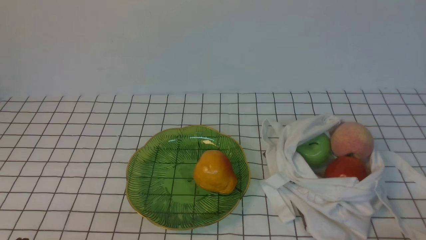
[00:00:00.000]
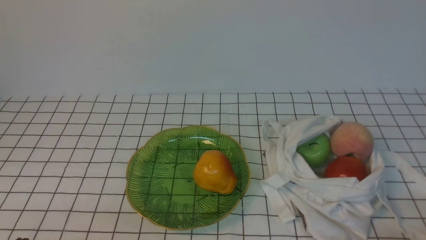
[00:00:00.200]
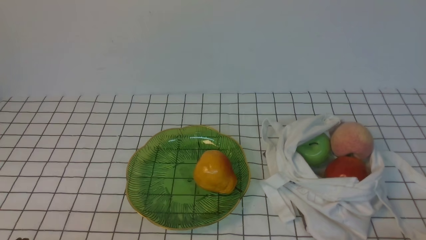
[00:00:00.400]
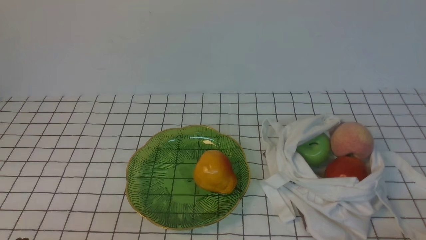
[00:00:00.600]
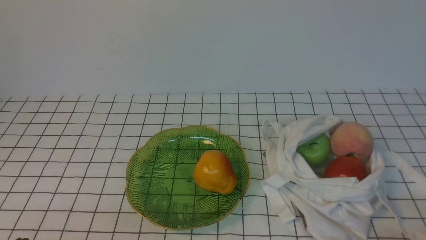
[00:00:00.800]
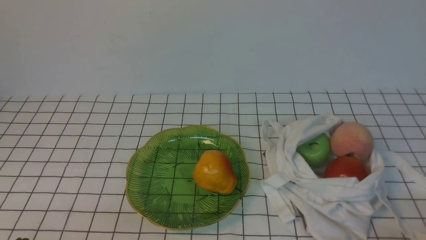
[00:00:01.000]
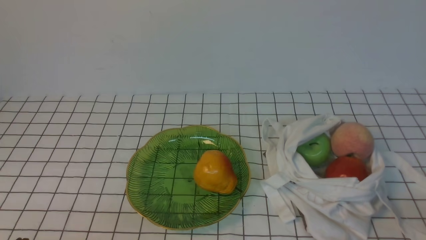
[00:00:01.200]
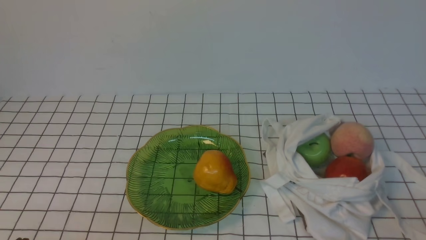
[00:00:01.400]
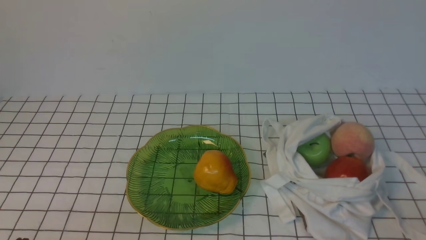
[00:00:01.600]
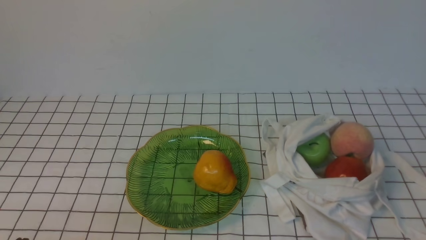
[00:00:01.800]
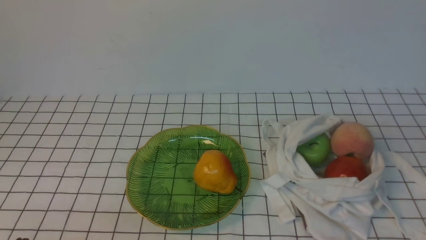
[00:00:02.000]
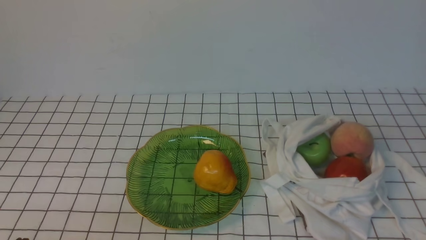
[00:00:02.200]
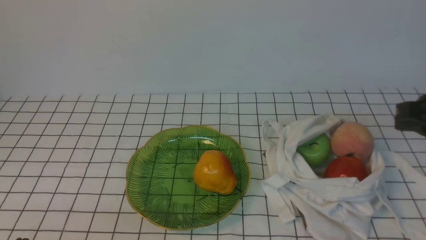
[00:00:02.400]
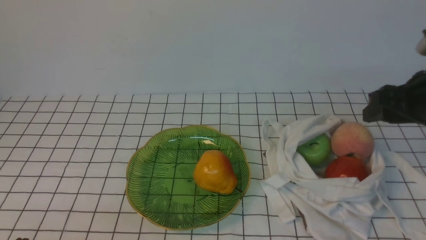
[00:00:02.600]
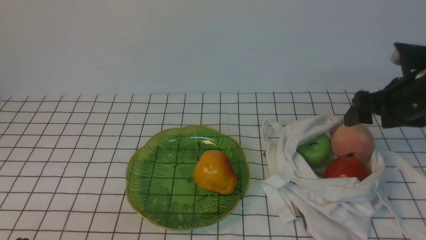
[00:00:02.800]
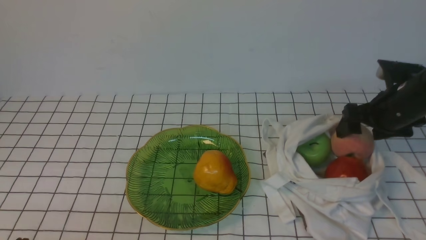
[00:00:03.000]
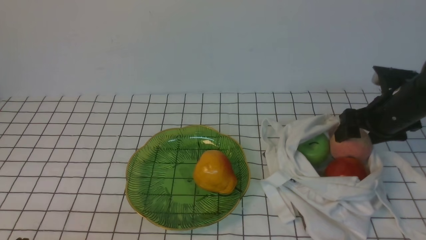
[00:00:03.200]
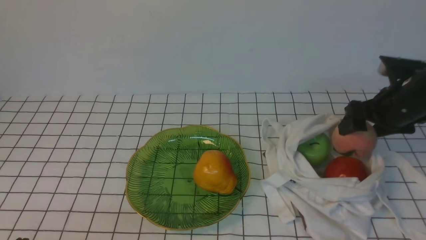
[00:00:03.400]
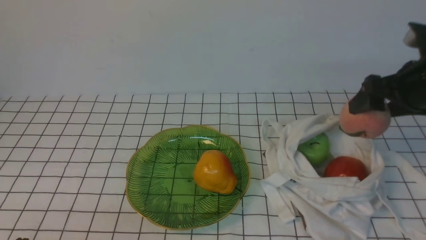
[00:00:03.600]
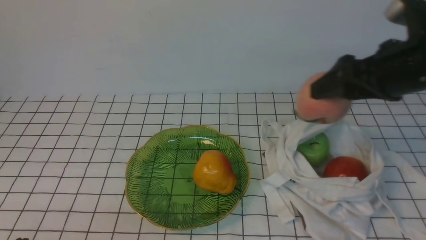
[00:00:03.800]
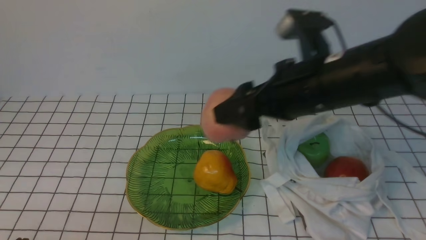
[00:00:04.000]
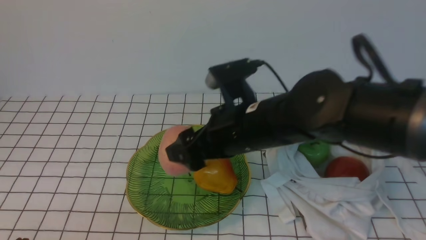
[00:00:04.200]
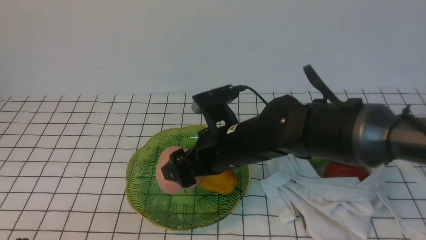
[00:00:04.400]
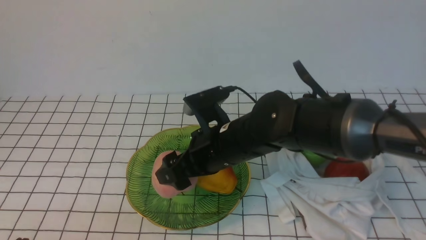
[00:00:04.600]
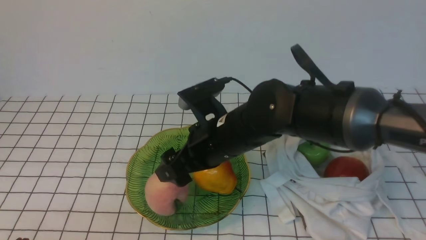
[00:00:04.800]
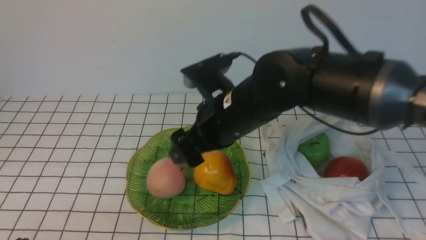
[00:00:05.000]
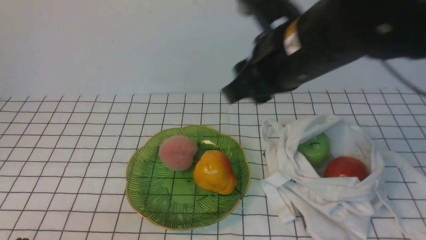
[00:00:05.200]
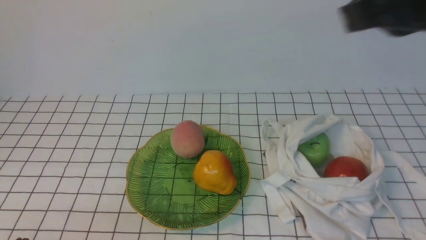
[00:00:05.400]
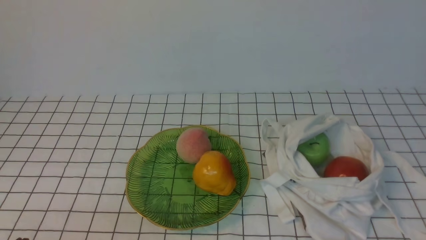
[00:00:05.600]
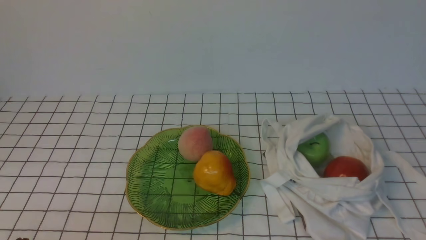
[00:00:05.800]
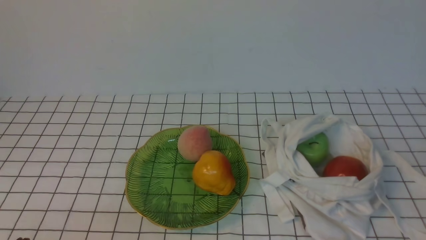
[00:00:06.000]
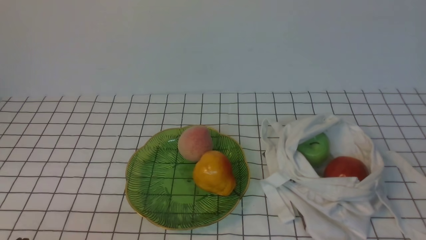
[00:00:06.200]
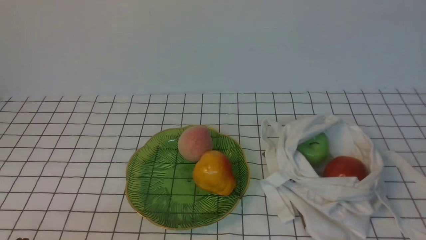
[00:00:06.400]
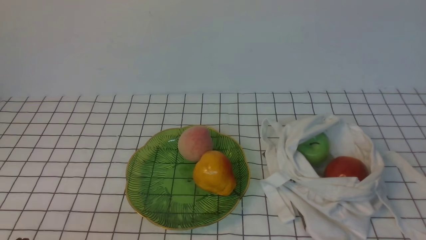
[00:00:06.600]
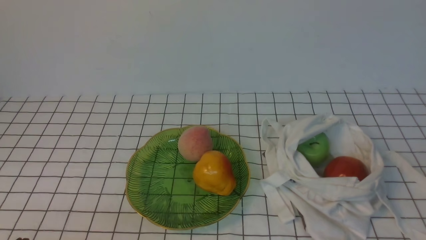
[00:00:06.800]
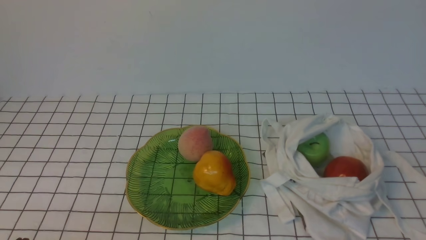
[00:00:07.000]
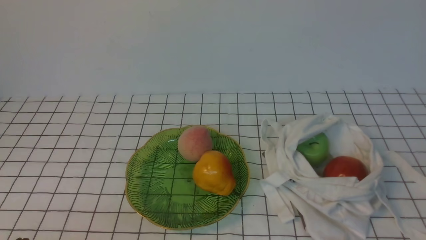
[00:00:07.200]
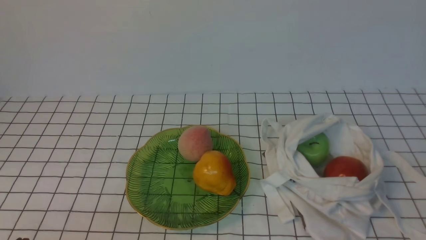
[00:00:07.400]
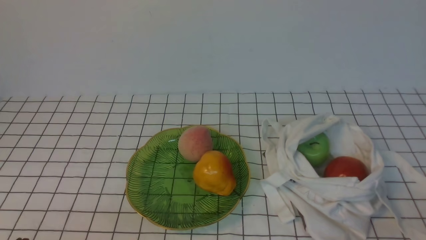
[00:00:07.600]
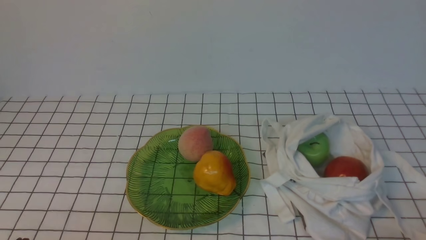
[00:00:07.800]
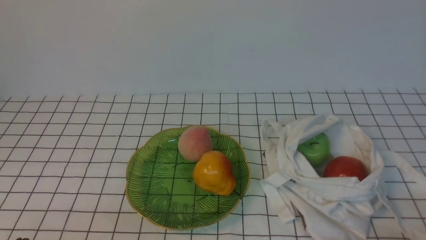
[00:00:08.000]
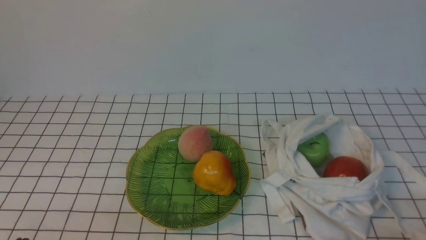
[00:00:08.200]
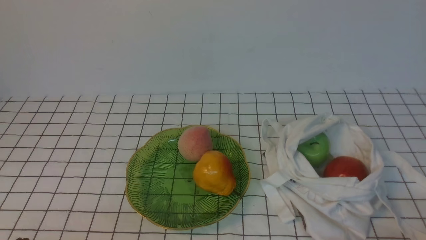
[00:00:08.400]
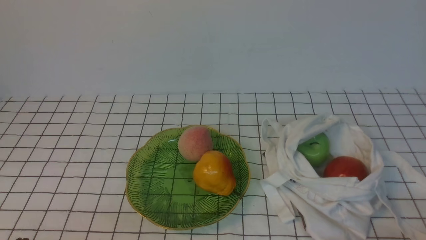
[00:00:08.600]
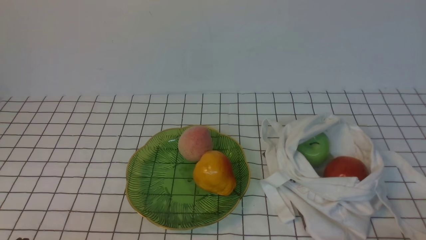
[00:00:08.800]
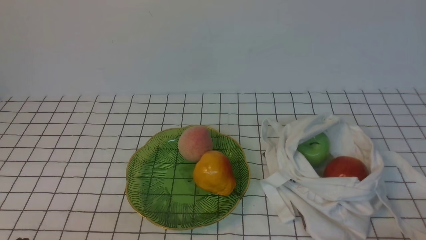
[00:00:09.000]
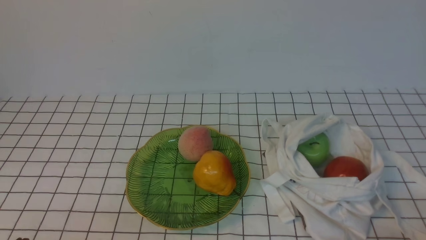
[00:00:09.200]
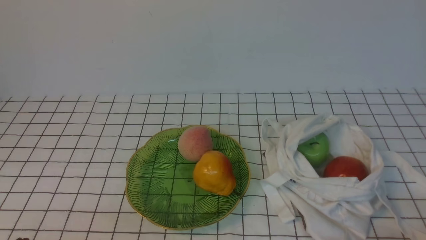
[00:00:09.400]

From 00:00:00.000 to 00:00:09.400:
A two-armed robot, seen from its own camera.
Step, from 00:00:00.000 to 00:00:03.200: use the right arm to grab a peach from the bag.
Step, from 00:00:03.400 to 00:00:04.600: use the right arm to put the peach into the empty plate on the left.
From 00:00:01.600 to 00:00:03.200: The right gripper is displaced forward by approximately 30 cm, and opens its fingers.
From 00:00:03.200 to 00:00:04.800: The right gripper goes some 30 cm to the left.
From 00:00:04.800 to 00:00:06.200: The right gripper travels to the right and backward by roughly 40 cm, and closes its fingers.
From 00:00:07.800 to 00:00:09.400: The two grippers keep their place.

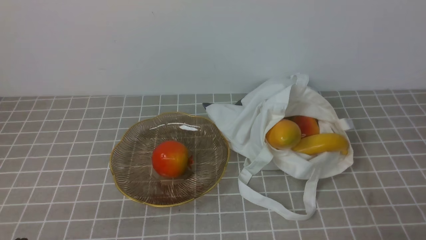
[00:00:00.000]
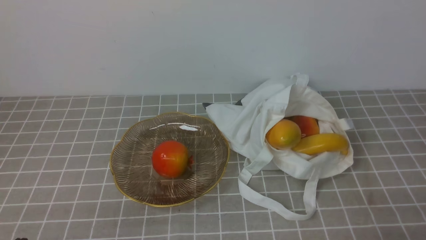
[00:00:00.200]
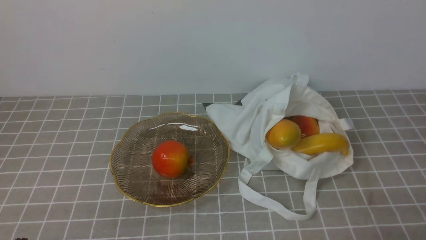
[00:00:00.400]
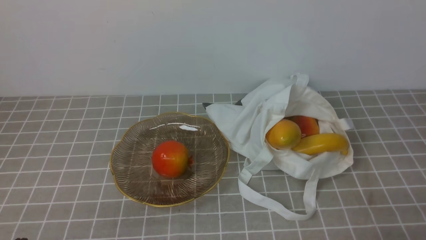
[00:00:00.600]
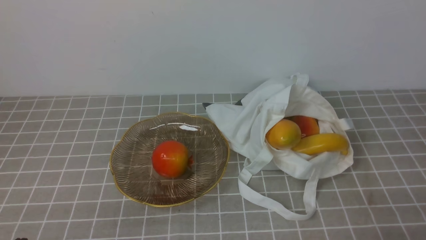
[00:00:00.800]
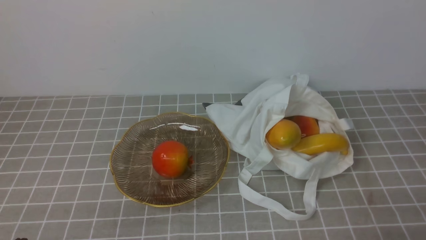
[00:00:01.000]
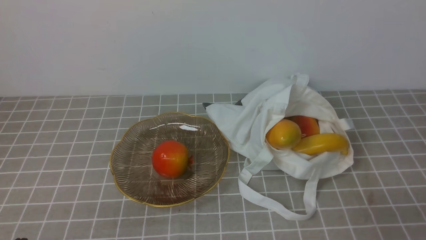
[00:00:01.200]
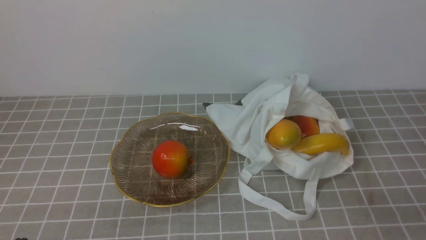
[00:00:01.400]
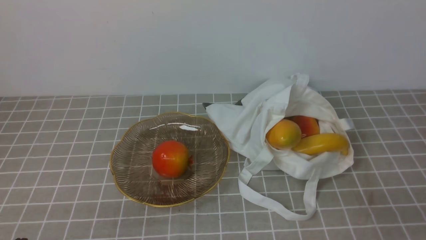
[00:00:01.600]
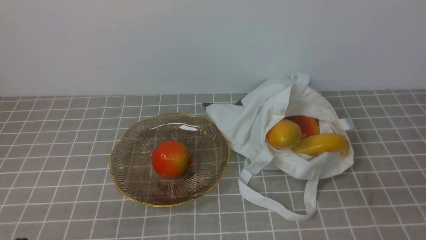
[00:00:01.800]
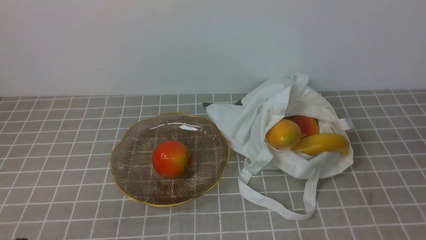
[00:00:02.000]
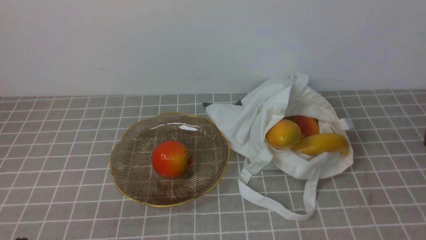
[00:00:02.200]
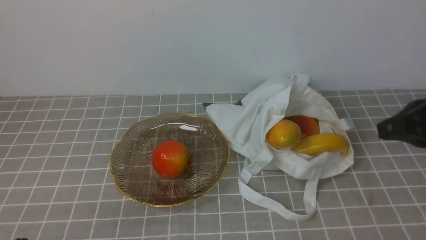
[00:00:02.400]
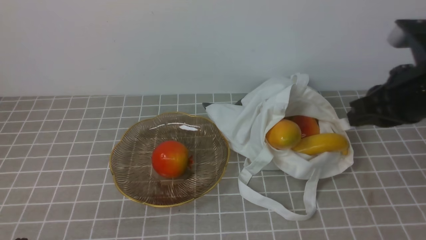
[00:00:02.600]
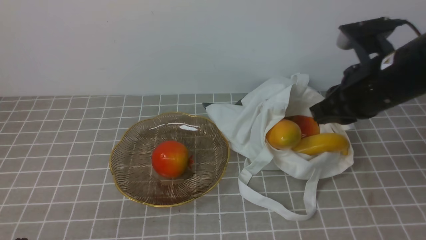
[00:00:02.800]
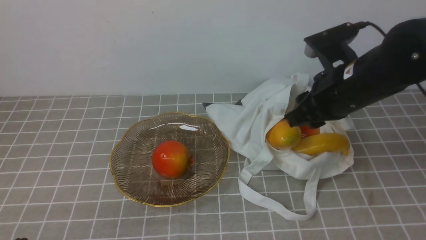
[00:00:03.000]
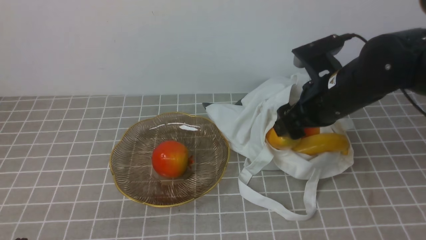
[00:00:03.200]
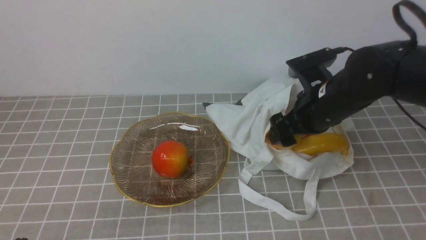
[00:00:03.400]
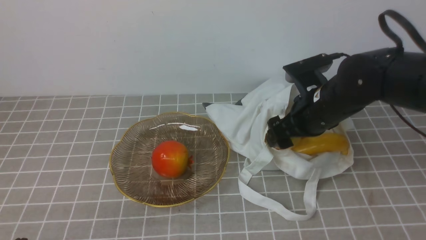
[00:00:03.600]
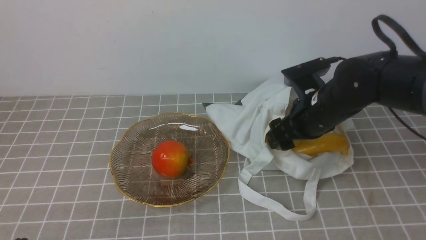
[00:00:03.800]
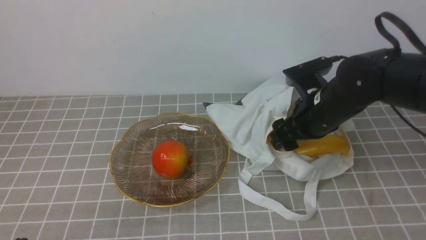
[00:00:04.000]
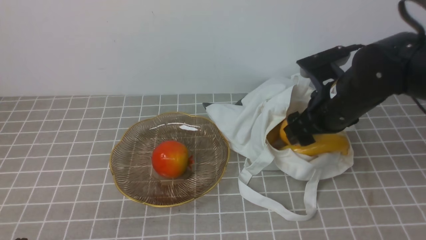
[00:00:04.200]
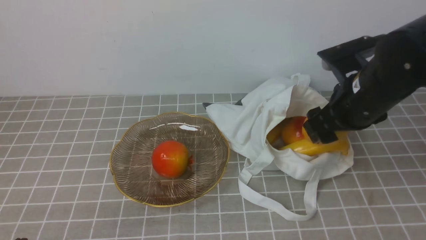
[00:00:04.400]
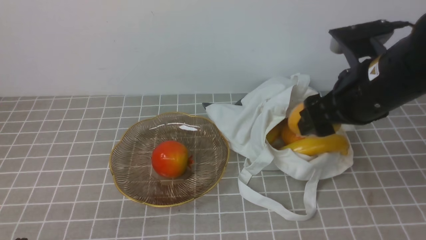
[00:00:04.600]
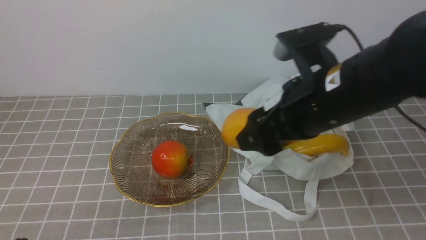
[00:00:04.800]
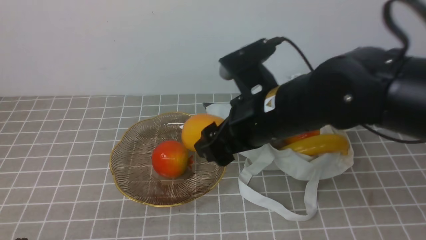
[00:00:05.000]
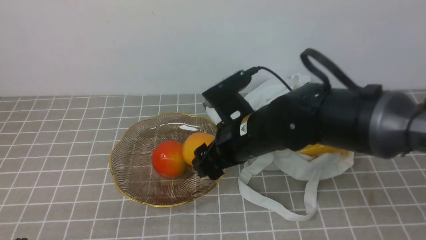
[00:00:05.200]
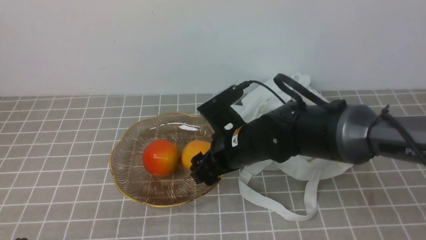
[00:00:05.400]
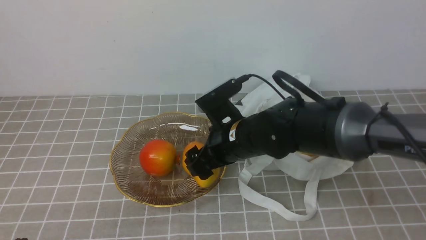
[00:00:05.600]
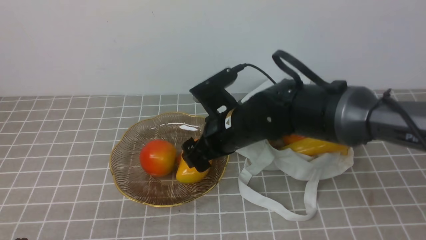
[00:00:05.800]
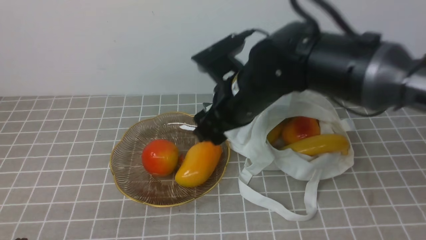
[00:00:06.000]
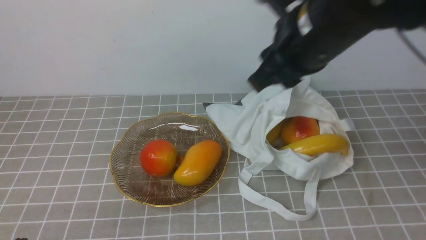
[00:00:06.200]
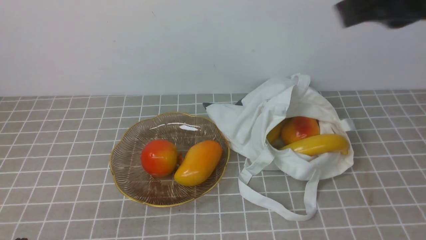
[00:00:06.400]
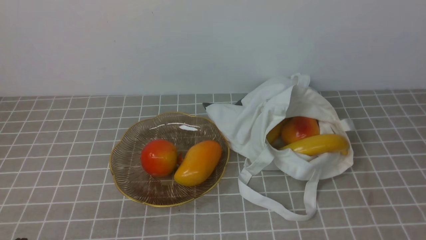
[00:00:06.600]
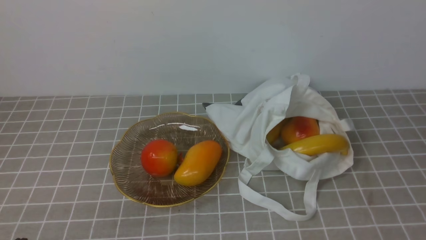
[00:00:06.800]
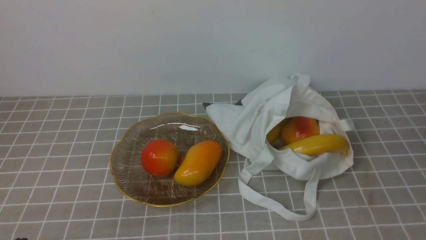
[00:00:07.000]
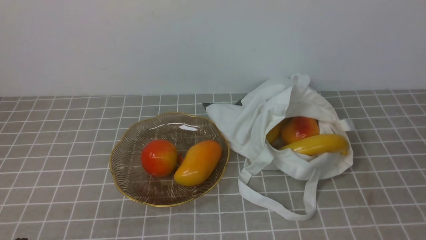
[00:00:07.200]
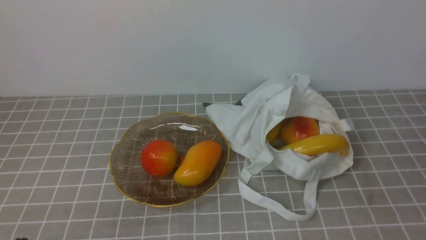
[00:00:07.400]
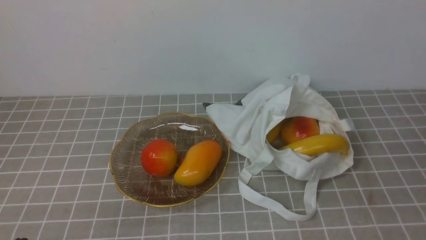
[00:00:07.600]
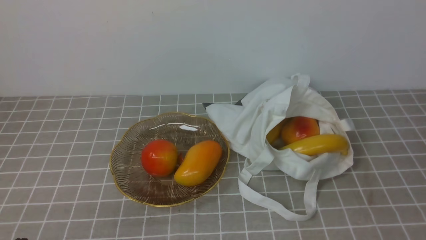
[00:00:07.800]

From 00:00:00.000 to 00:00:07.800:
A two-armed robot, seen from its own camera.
Step, from 00:00:00.000 to 00:00:04.000: use the right arm to grab a mango from the bag.
Step, from 00:00:04.200 to 00:00:05.600: use the right arm to put the mango into the empty plate on the left.
From 00:00:01.600 to 00:00:03.200: The right gripper goes about 30 cm forward and to the left, and opens its fingers.
From 00:00:03.200 to 00:00:04.600: The right gripper heads backward and upward, covering roughly 5 cm.
From 00:00:04.600 to 00:00:06.200: The right gripper moves upward, about 10 cm, and closes its fingers.
From 00:00:06.200 to 00:00:07.800: The right gripper travels backward and to the right by approximately 30 cm, and closes up.
